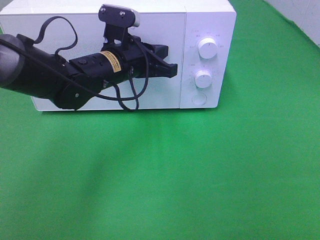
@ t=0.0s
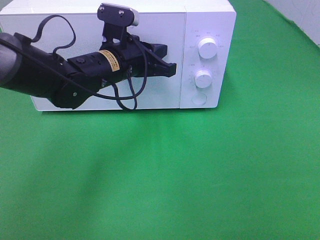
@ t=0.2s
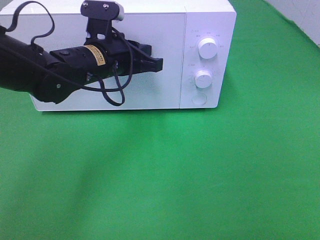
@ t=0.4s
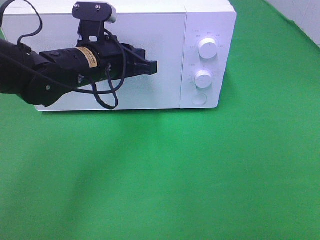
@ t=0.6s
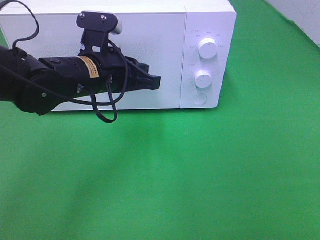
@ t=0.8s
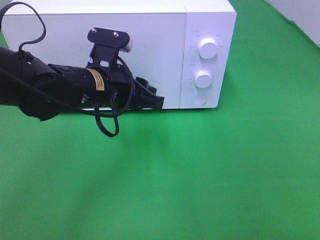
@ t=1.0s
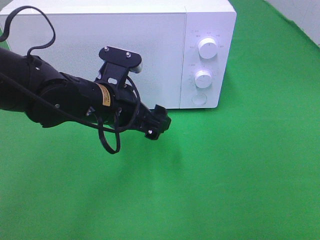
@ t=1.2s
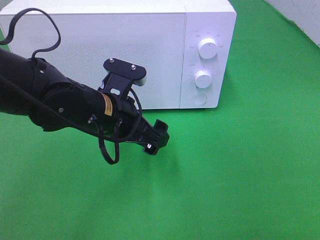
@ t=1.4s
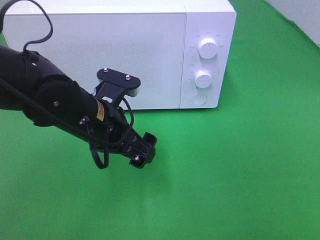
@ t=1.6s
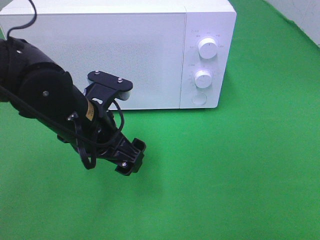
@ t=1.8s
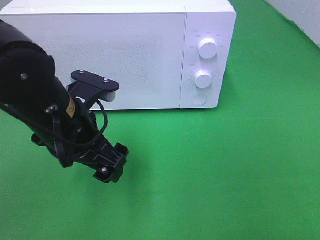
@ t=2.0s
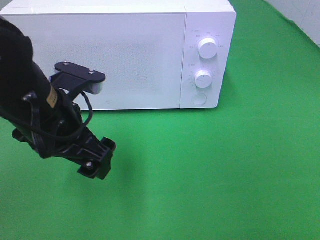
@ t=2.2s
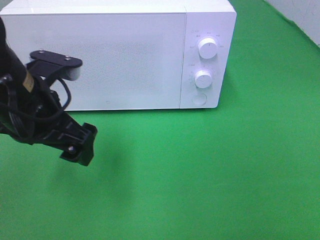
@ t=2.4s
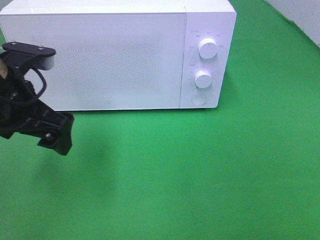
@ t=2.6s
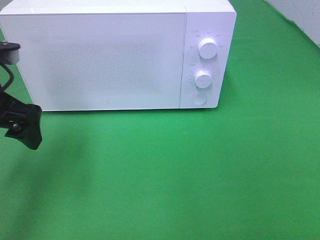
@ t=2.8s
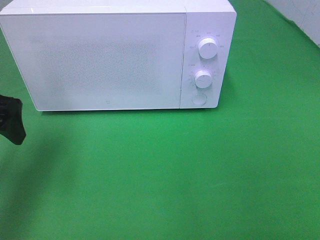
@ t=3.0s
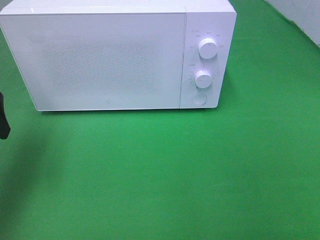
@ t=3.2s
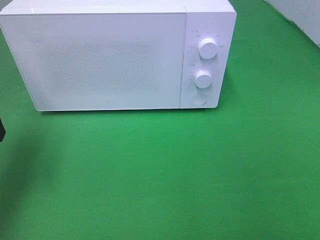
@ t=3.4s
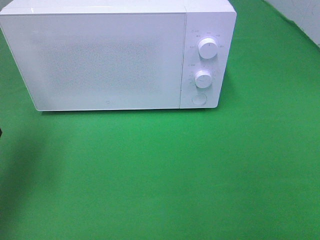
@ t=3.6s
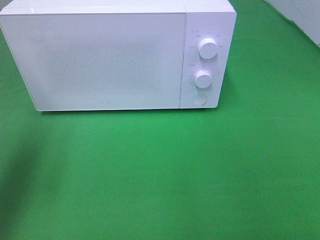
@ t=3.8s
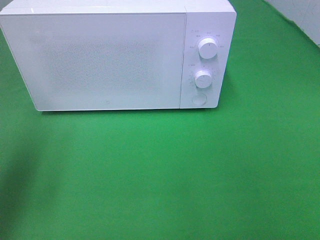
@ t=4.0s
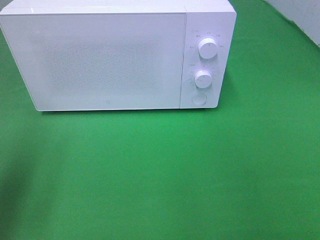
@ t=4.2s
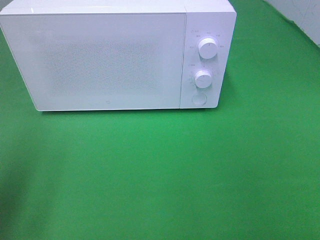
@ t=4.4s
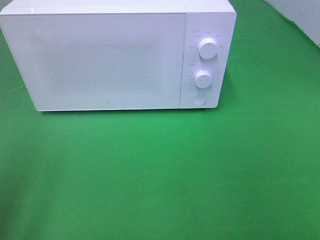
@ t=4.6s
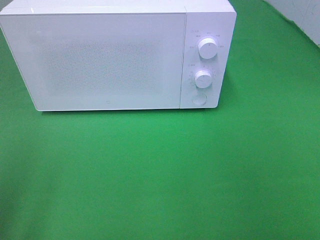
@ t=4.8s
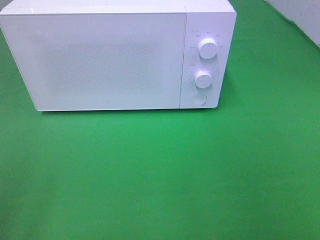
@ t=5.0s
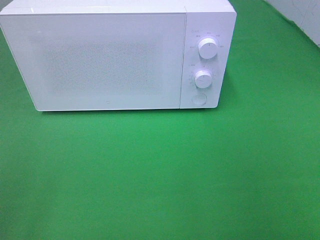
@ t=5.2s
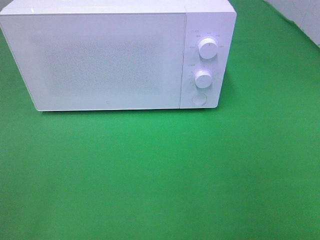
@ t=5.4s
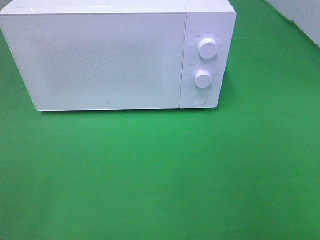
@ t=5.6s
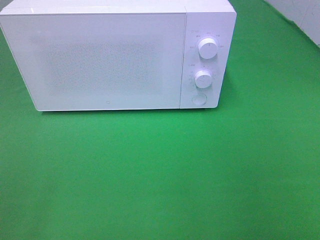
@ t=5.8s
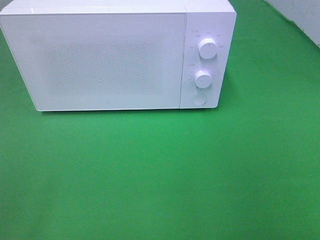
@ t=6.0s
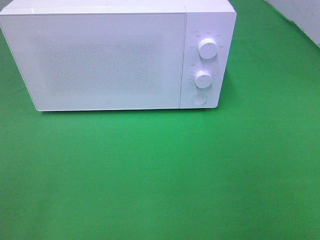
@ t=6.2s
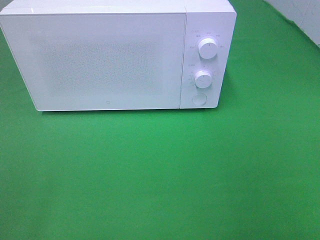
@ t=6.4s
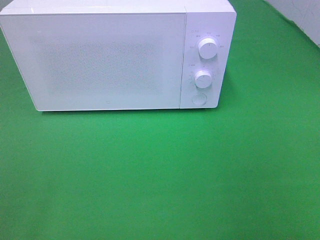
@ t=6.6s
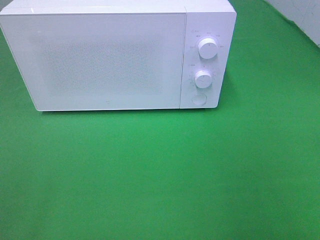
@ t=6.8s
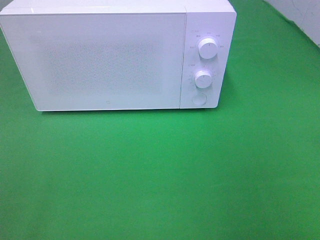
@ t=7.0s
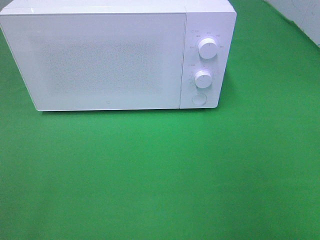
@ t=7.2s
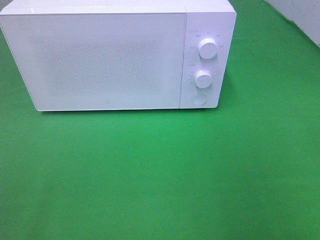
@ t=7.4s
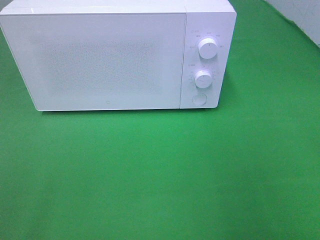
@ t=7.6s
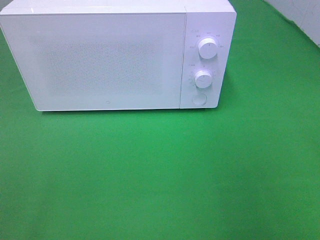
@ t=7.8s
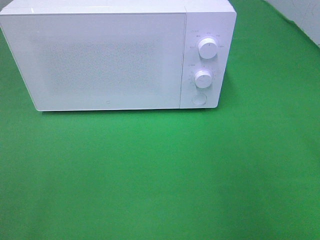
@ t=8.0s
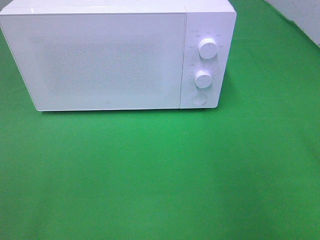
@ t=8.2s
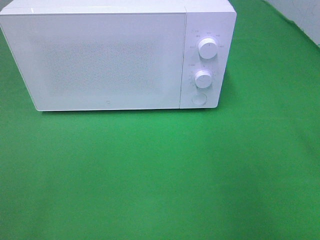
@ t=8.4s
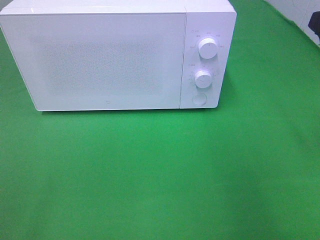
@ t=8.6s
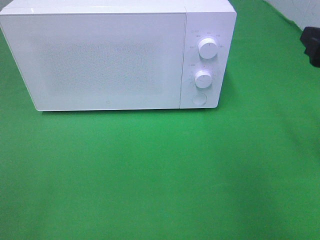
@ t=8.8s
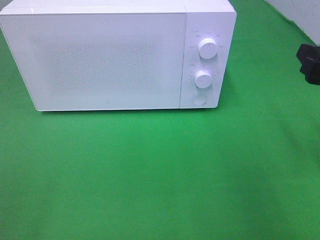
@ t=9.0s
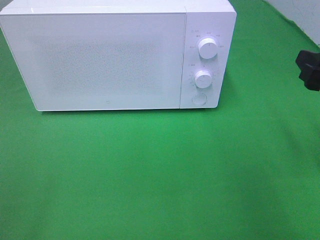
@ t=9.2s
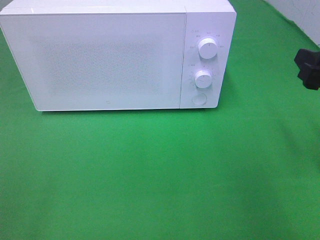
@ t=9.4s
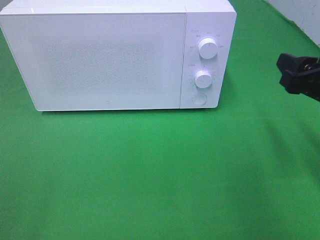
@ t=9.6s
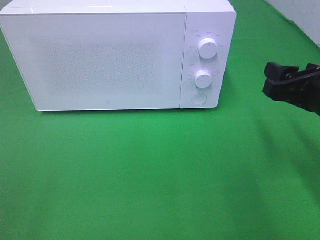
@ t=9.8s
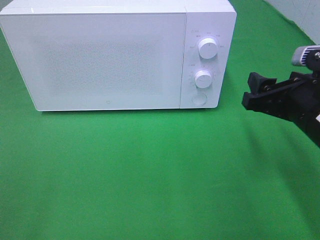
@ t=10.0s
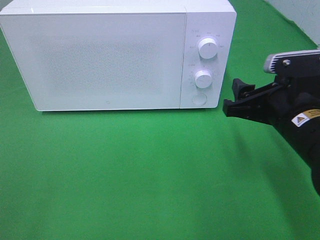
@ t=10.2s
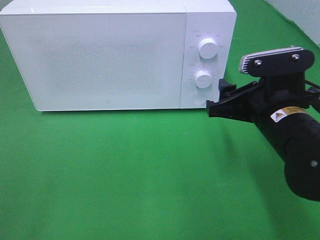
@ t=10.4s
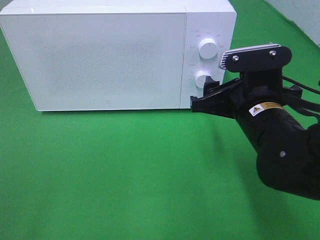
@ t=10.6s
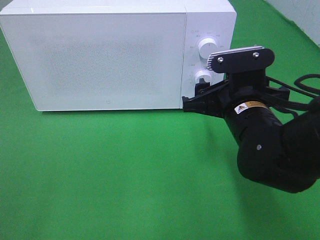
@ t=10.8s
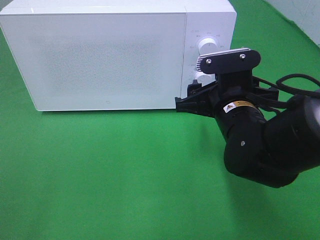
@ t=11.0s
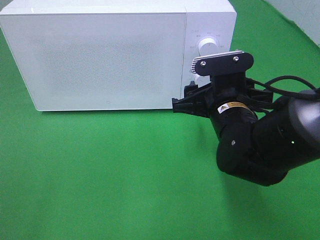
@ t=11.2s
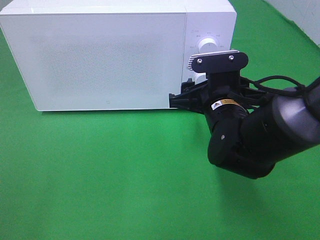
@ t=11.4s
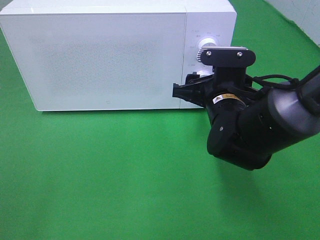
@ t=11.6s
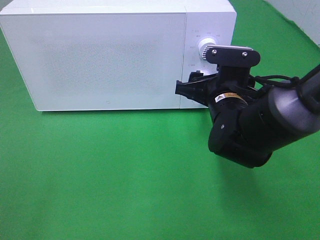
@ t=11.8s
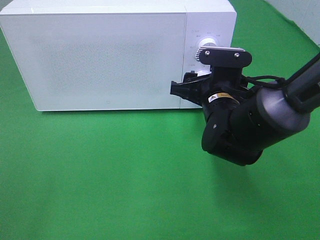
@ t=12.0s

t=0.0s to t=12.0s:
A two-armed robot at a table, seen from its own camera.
Task of the whole recording: Heat the burger.
t=0.0s to t=1.6s: The left gripper shifts roughly 10 cm backward, and opens.
t=1.6s to t=3.0s: The left gripper shifts roughly 20 cm to the left and upward.
t=3.0s to t=4.4s: The left gripper is displaced backward by approximately 10 cm.
t=4.4s to t=6.0s: The left gripper travels backward by approximately 15 cm.
t=7.6s to t=9.0s: The right gripper heads forward and downward, covering approximately 15 cm.
t=9.0s to t=10.4s: The right gripper travels to the left and downward by about 15 cm.
t=10.4s to t=12.0s: The right gripper is displaced forward and to the left by some 10 cm.

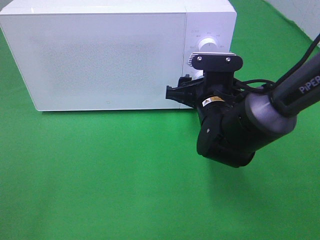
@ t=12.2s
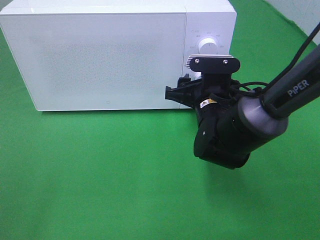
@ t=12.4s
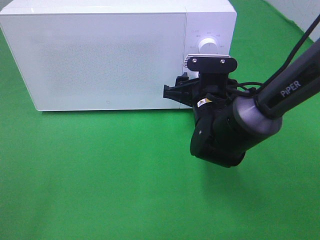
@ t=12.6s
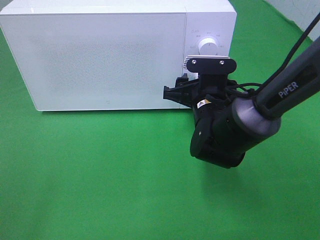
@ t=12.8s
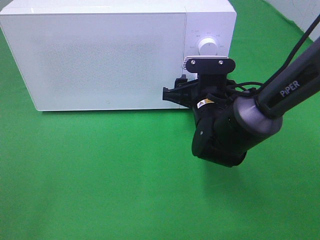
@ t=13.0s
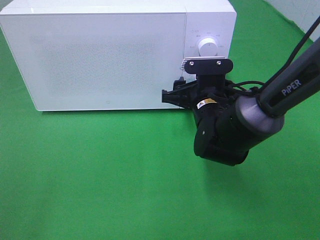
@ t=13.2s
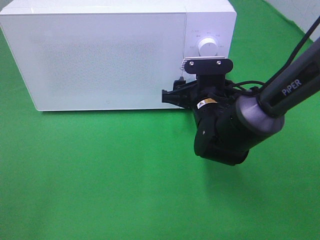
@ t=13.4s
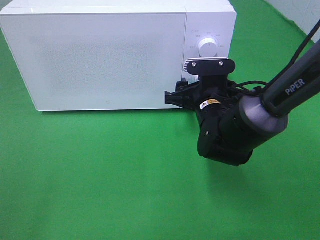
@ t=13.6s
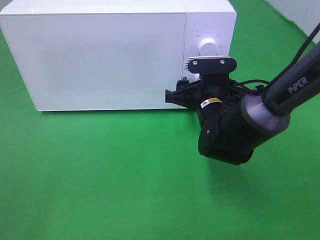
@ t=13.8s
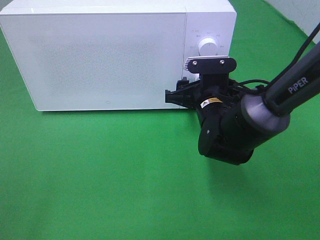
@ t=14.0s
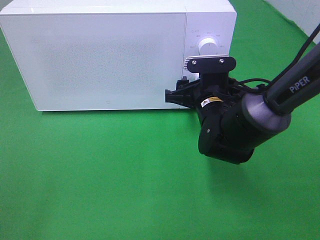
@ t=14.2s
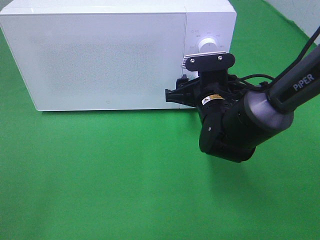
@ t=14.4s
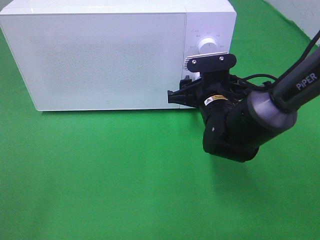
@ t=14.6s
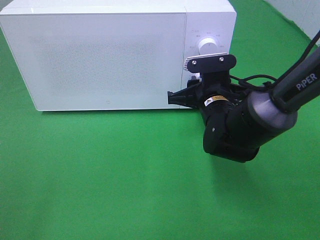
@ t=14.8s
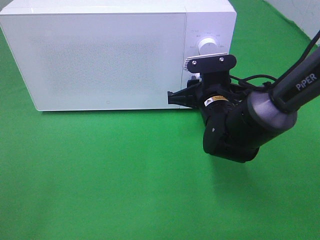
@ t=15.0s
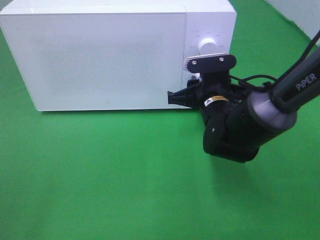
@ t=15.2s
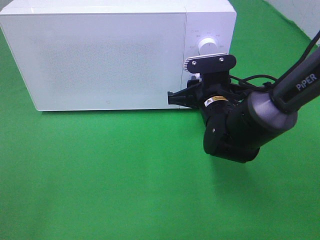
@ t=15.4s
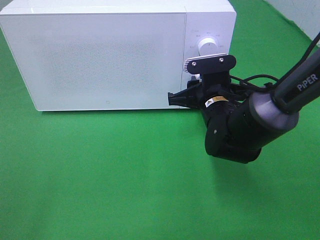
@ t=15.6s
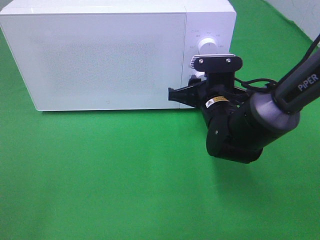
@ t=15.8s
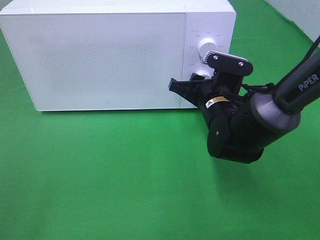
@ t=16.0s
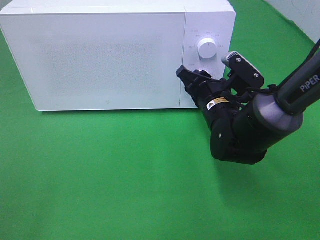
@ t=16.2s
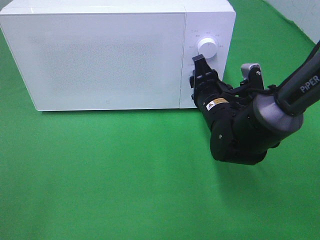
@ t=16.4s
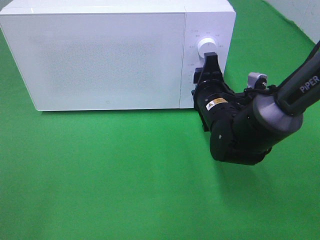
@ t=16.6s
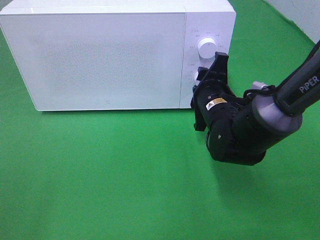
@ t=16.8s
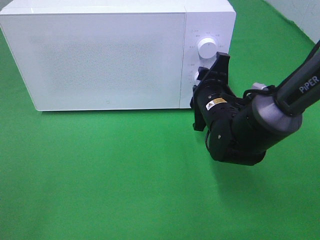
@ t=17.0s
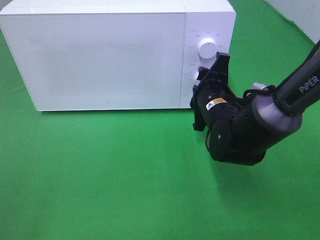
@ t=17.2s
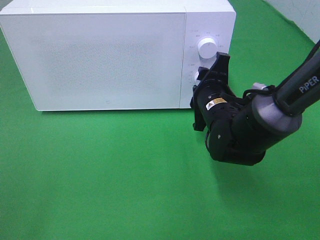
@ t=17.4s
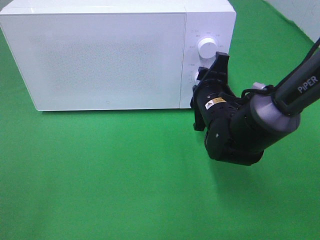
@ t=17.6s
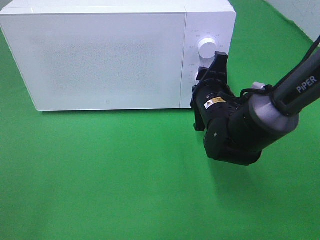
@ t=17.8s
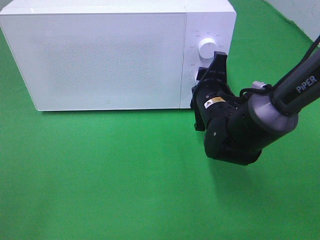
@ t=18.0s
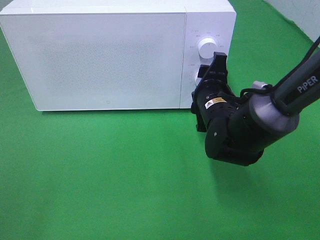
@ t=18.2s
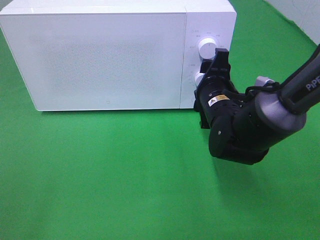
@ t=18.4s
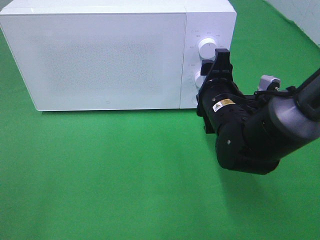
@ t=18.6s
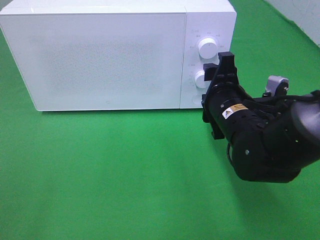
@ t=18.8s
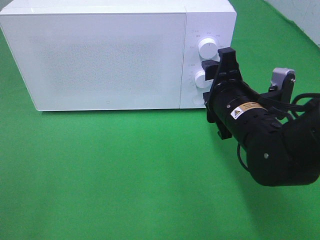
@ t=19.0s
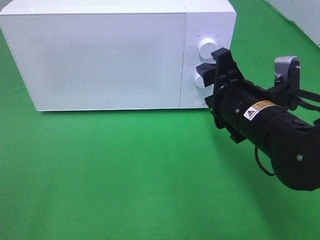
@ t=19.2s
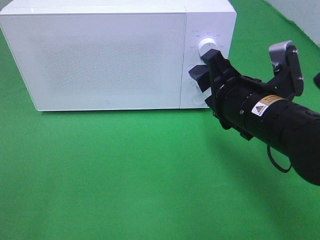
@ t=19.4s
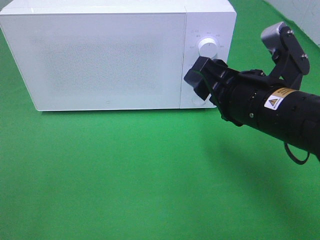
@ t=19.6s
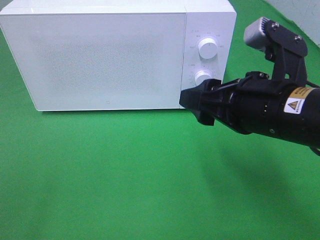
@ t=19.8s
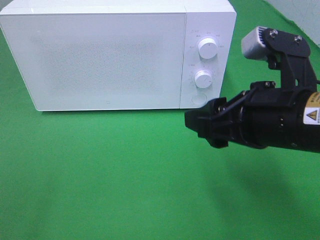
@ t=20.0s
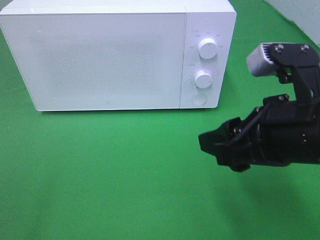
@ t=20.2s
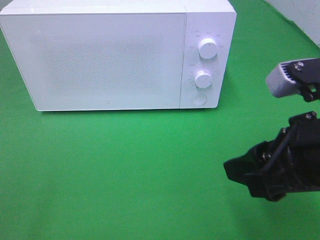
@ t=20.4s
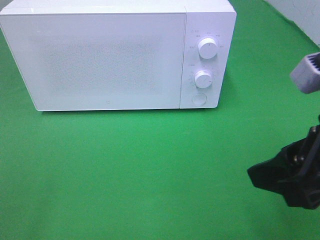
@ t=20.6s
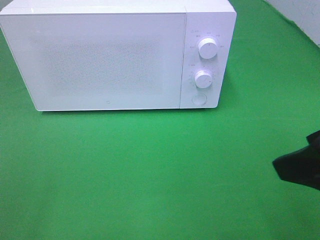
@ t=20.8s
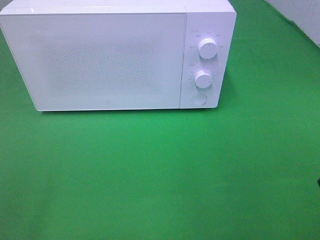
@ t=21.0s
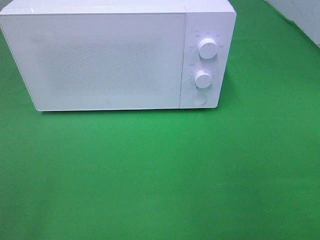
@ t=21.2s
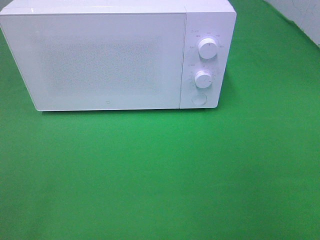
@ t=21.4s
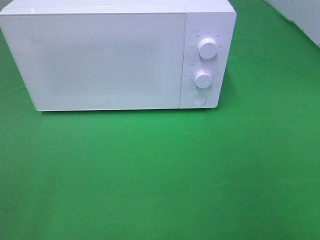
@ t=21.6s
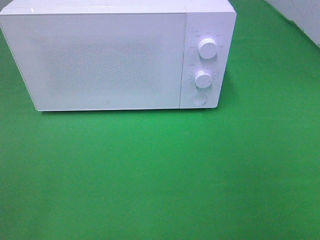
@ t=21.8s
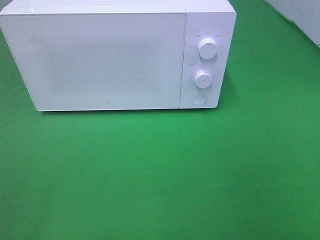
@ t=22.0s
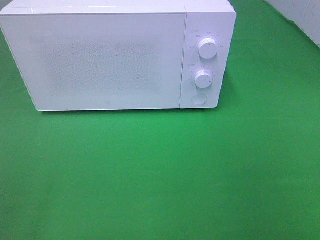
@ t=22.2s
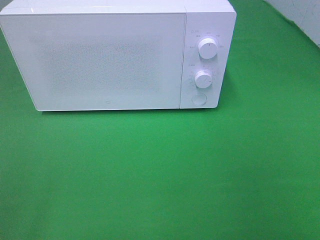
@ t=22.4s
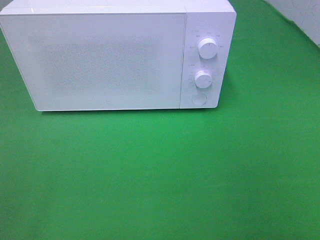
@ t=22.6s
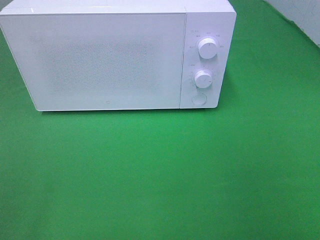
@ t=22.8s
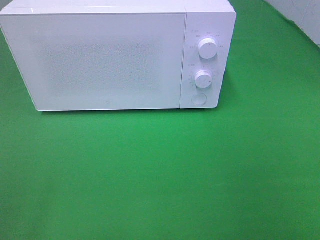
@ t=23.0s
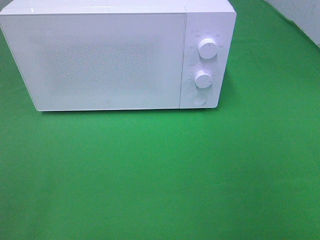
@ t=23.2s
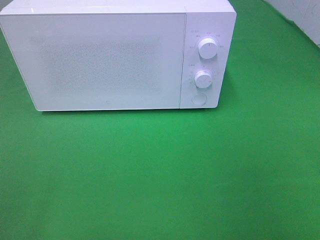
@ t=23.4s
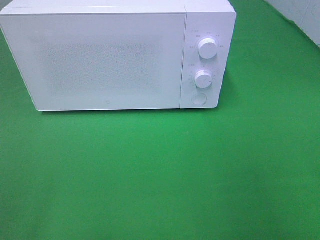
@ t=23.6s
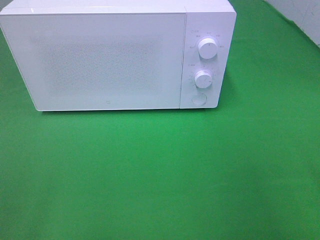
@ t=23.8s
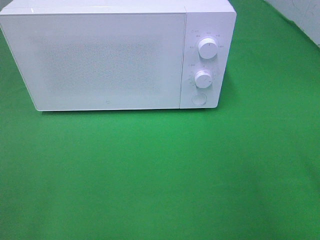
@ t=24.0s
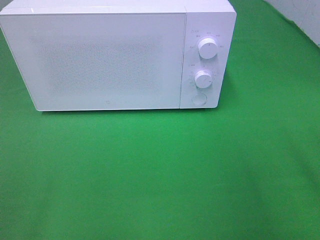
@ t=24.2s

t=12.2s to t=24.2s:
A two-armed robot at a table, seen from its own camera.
Task of the whole recording: Heat the burger.
Step, t=12.2s to t=18.6s: Right hand: twist timer button.
t=12.2s to t=13.8s: The grippers move only a little.
t=13.8s to t=15.2s: The right gripper closes its fingers.
t=16.6s to t=18.2s: The grippers move only a little.
t=18.2s to t=19.8s: The right gripper travels backward and upward by some 15 cm.
t=19.8s to t=21.2s: The right gripper shifts about 20 cm backward, to the right and upward.
